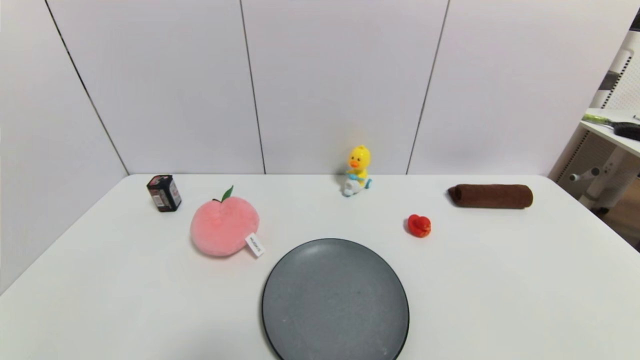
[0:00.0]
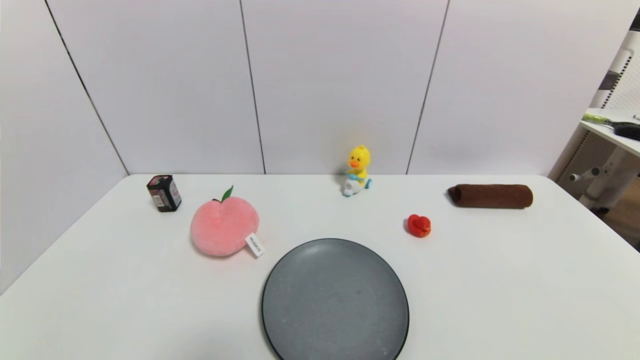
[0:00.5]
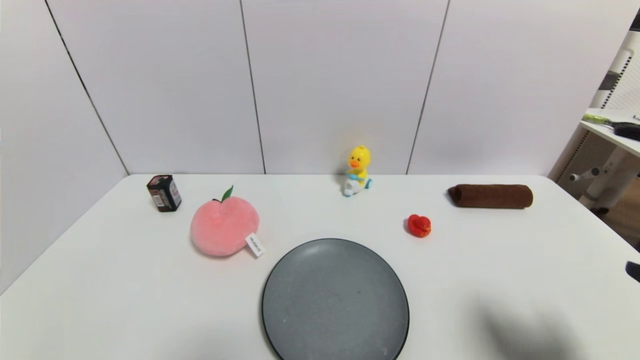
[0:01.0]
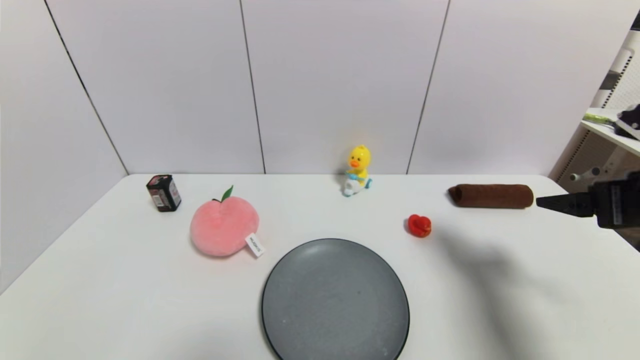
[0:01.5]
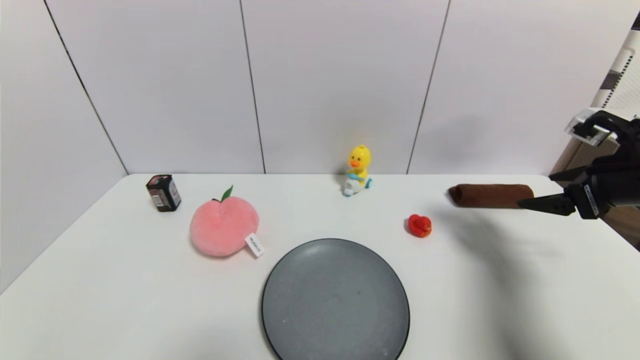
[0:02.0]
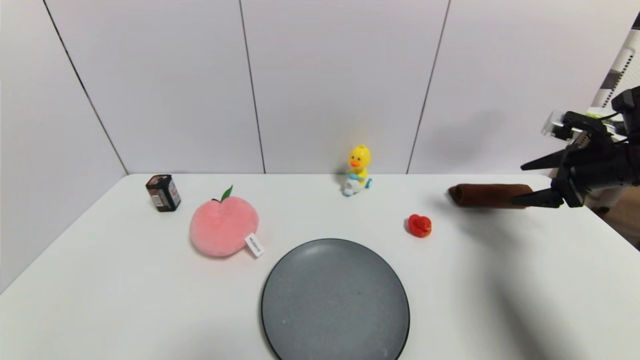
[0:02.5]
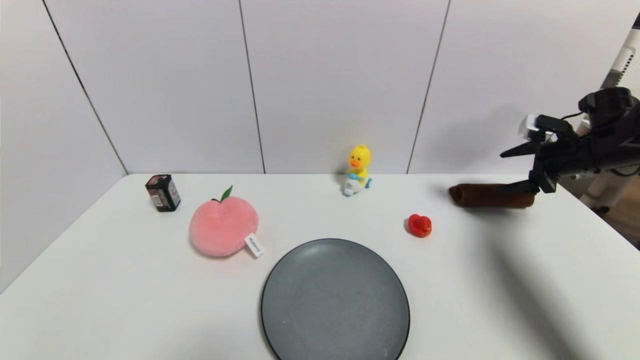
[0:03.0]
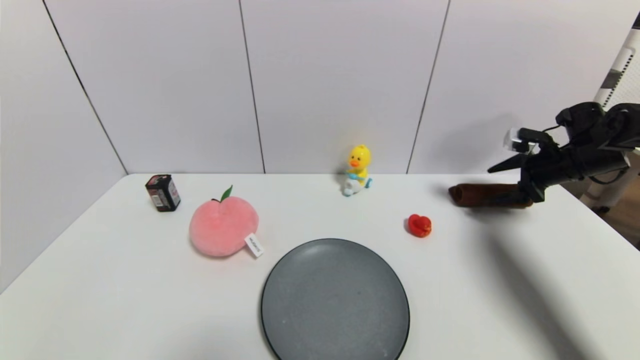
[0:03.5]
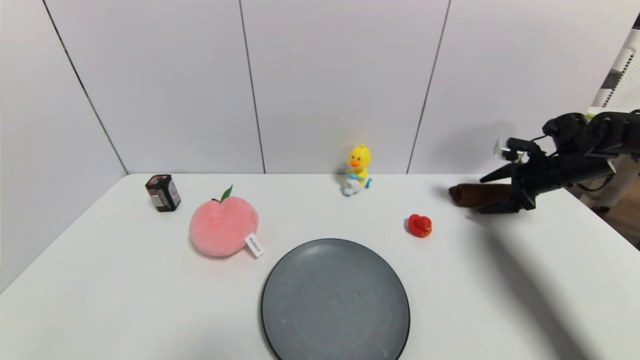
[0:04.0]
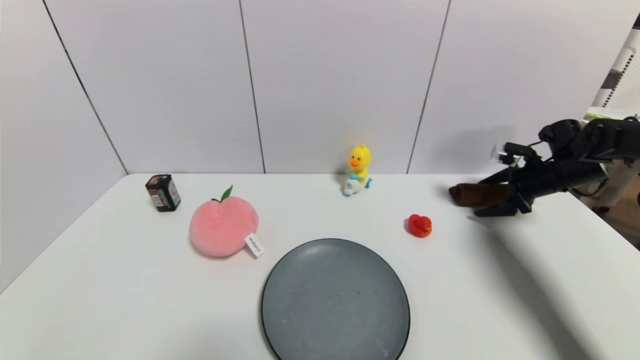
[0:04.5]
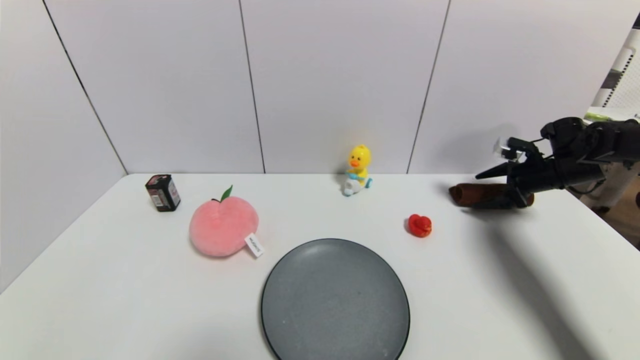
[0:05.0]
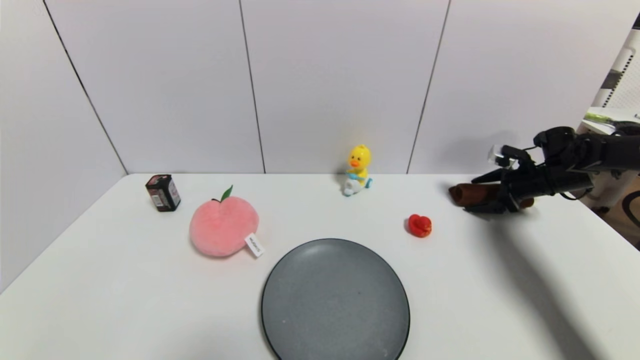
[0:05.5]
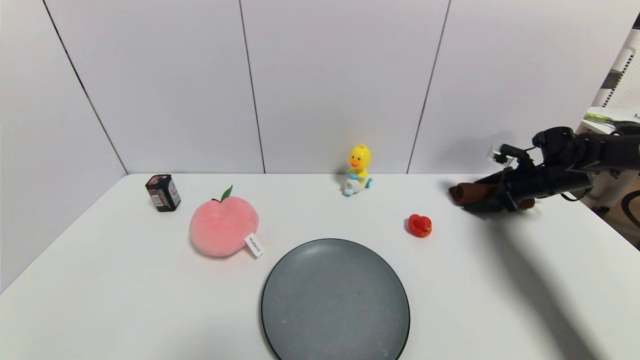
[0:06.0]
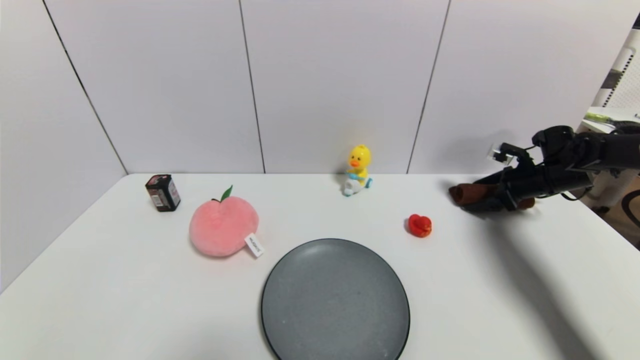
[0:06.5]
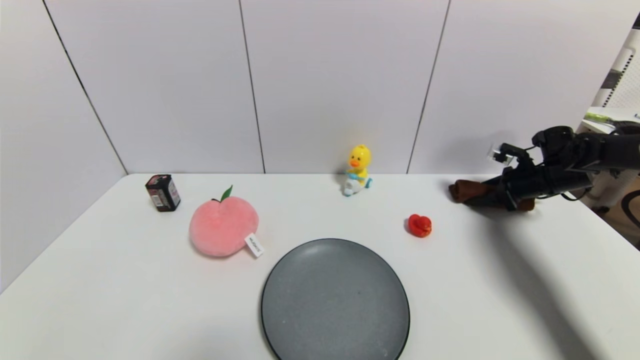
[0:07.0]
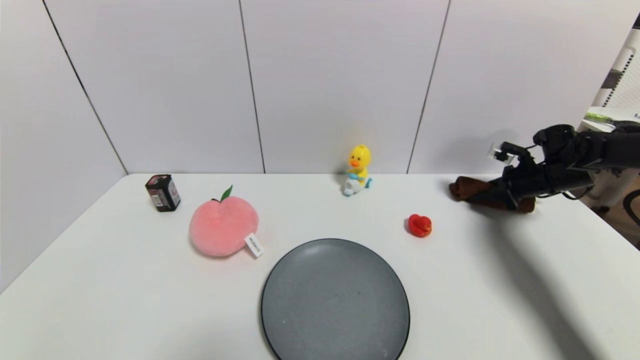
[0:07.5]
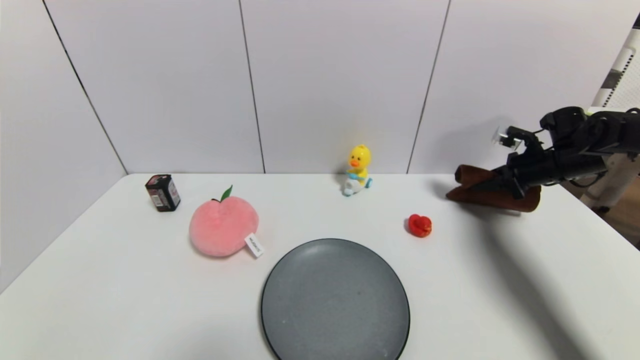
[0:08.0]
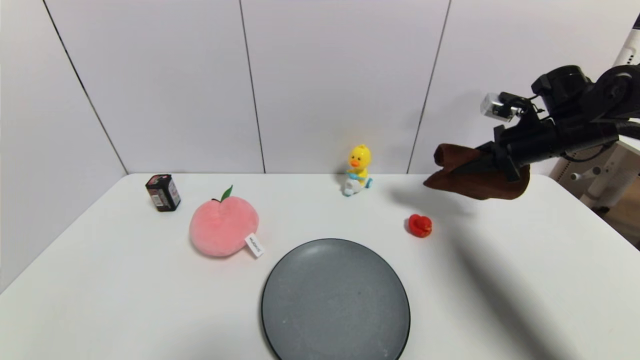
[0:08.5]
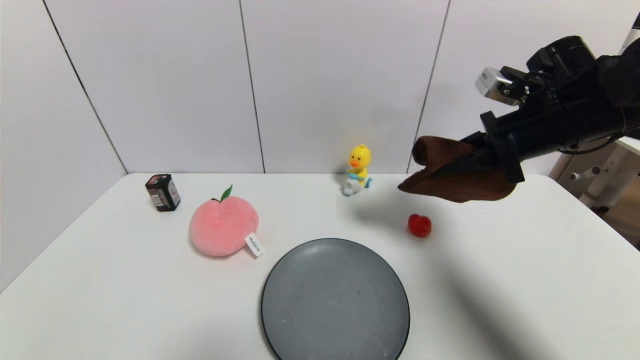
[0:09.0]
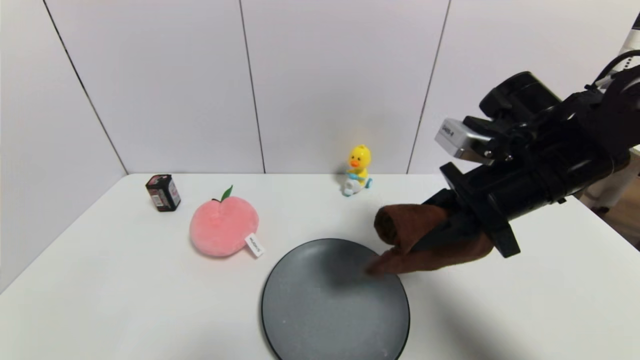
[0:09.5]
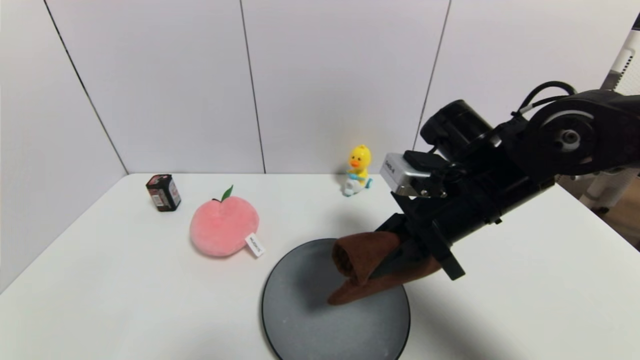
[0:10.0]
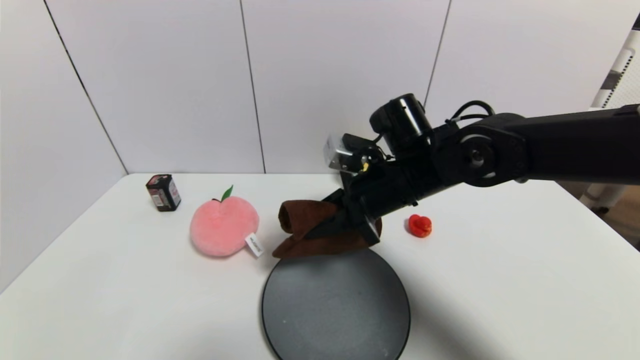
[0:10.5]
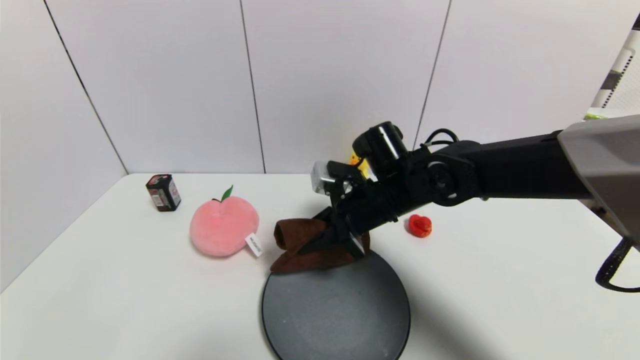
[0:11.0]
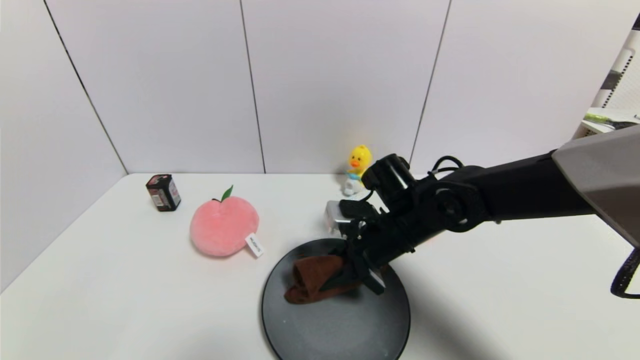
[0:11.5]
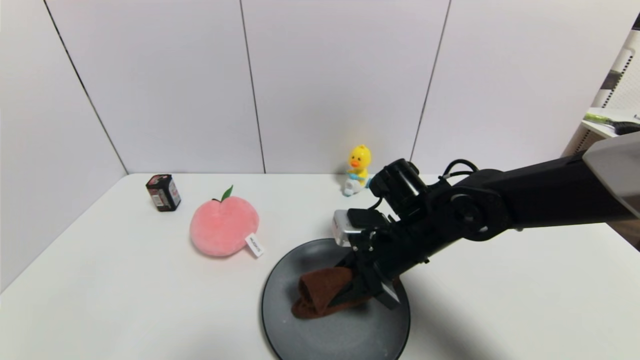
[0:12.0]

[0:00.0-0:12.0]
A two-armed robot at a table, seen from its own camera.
Task of the whole recording: use a gripper to pick the target object and place on the gray plate.
Step, 0:00.0 to 0:07.0: Grasp the brown towel with the right gripper.
0:00.0 to 0:02.0: The right gripper is displaced forward and upward by some 35 cm.
0:02.0 to 0:04.0: The right gripper goes roughly 20 cm forward and downward.
0:04.0 to 0:06.0: The grippers move only a little.
0:06.0 to 0:08.0: The right gripper goes about 5 cm upward, and closes.
0:08.0 to 0:10.0: The right gripper is displaced to the left and backward by some 30 cm.
0:10.0 to 0:12.0: The right gripper shifts some 10 cm downward.

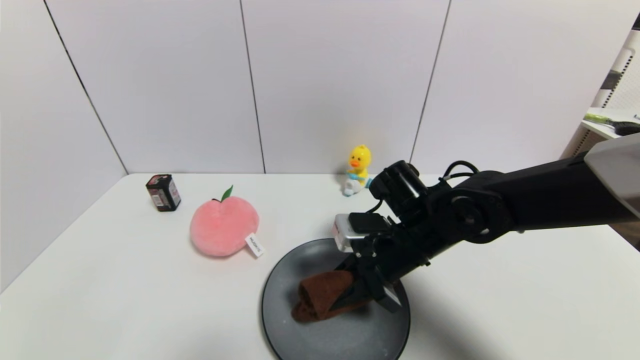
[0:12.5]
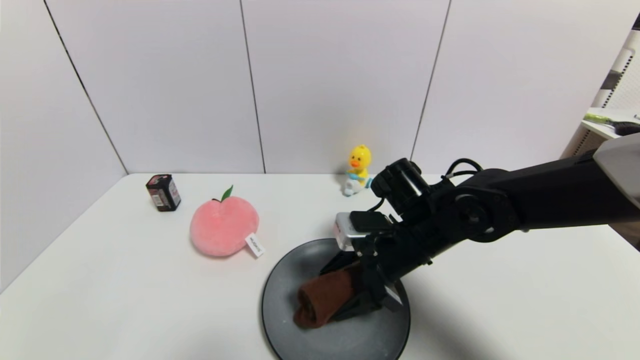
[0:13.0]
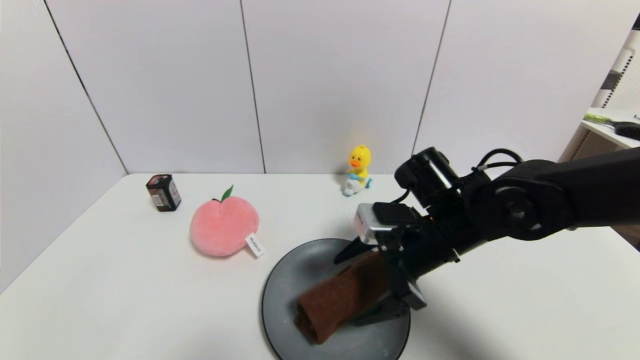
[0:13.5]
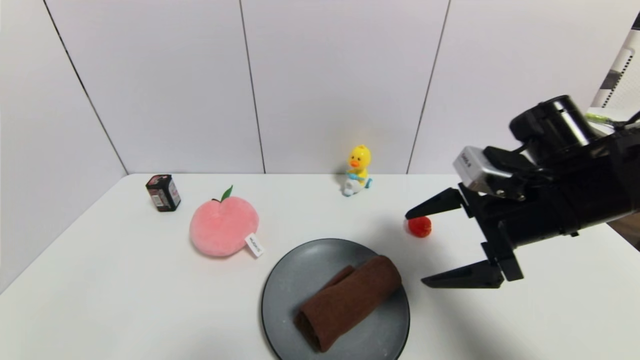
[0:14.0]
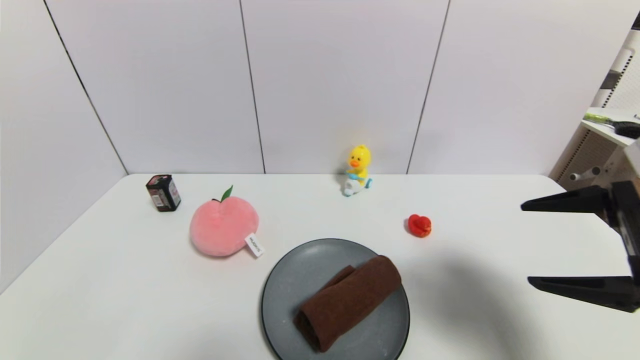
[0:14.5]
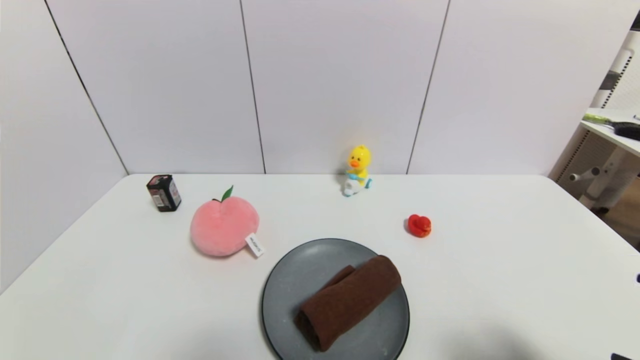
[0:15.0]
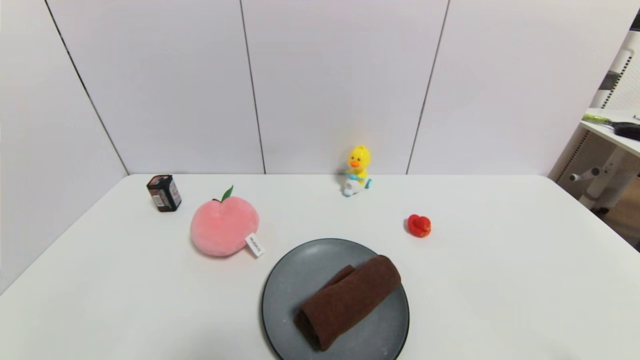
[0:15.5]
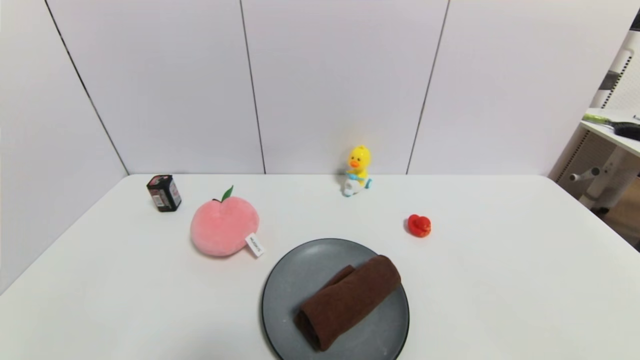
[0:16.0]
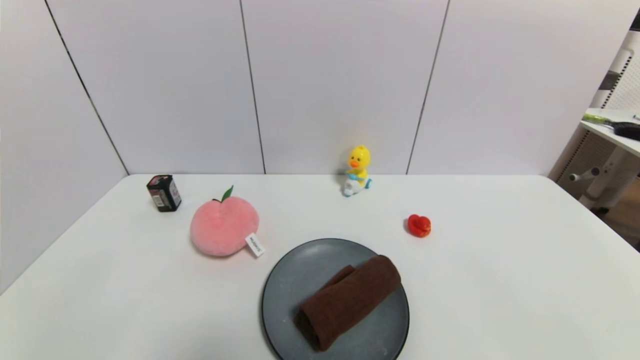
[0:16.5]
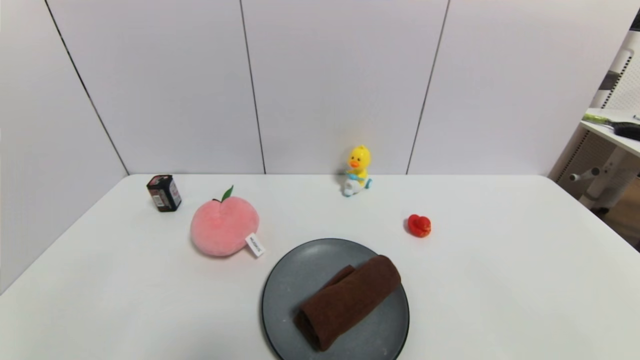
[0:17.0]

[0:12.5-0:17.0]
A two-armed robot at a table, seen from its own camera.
Task of the whole recording: use a gripper to pick the target object and place on the gray plate.
0:12.5 to 0:14.5: The right gripper moves to the right, backward and upward, some 25 cm, and opens up.
0:14.5 to 0:17.0: The right gripper heads backward and downward, covering some 25 cm.
